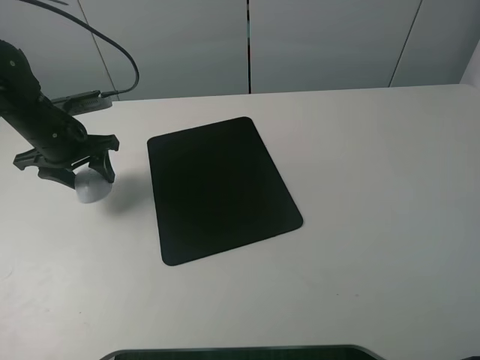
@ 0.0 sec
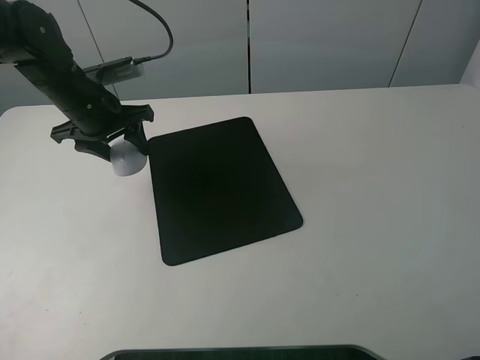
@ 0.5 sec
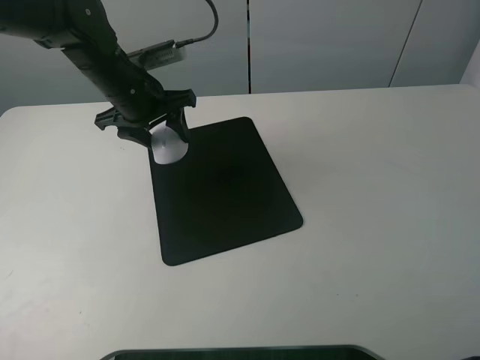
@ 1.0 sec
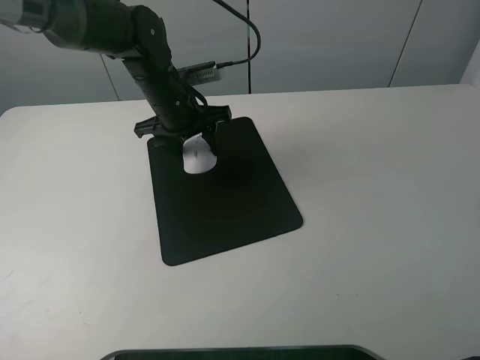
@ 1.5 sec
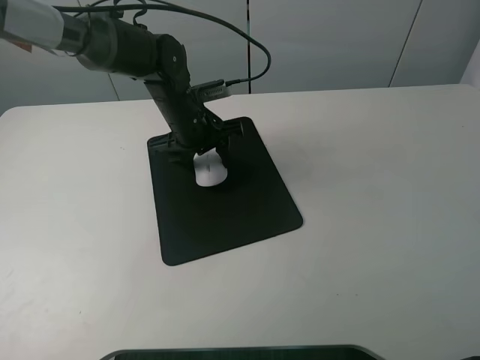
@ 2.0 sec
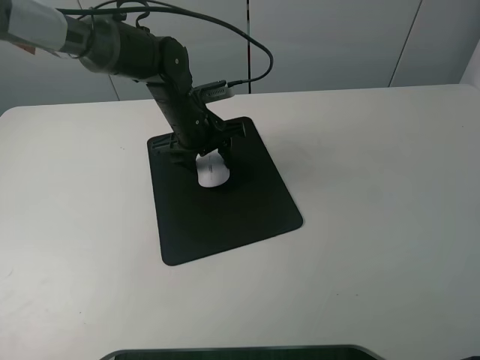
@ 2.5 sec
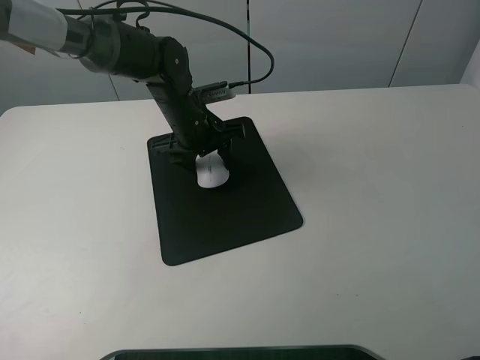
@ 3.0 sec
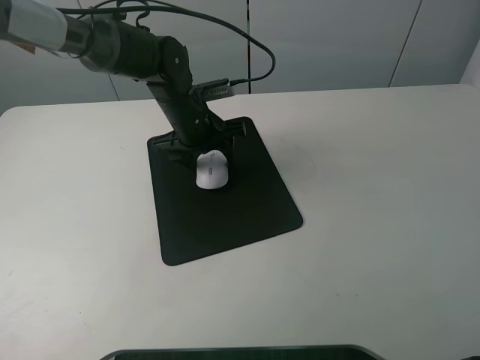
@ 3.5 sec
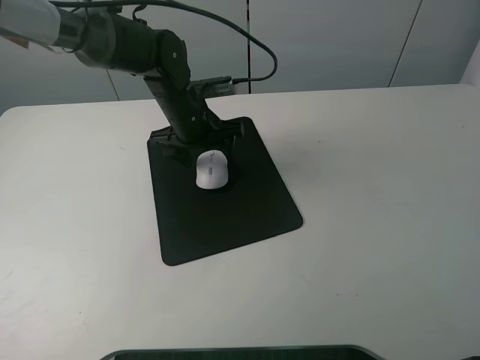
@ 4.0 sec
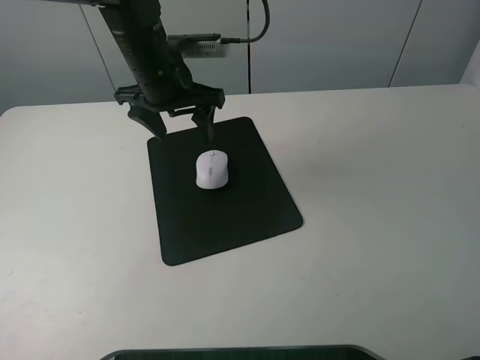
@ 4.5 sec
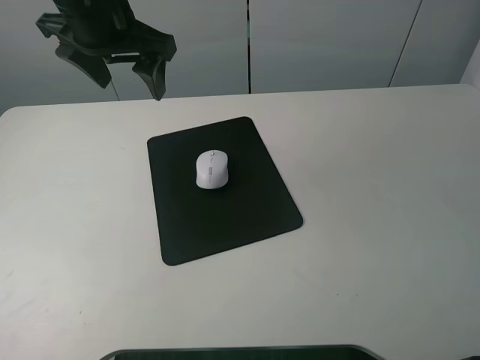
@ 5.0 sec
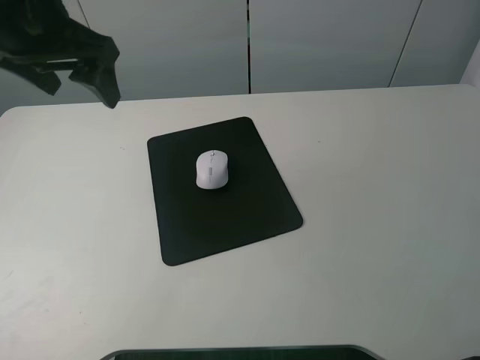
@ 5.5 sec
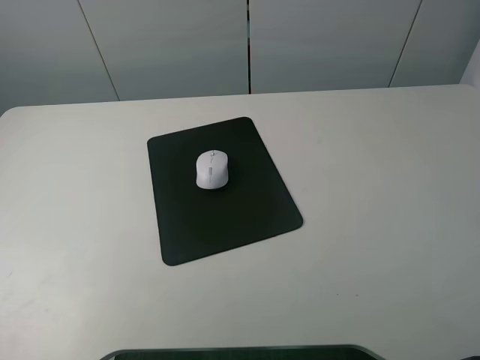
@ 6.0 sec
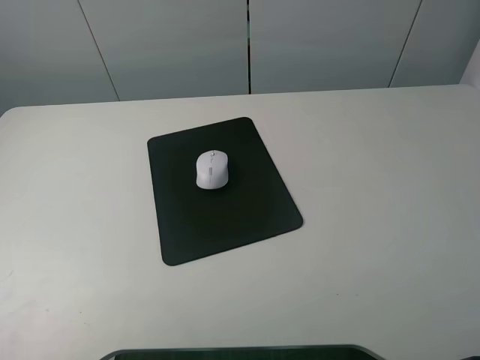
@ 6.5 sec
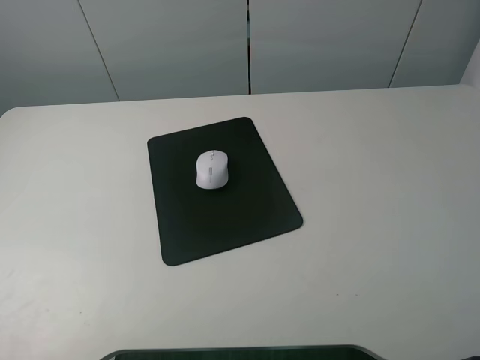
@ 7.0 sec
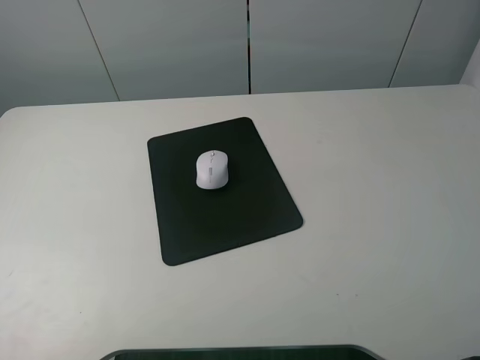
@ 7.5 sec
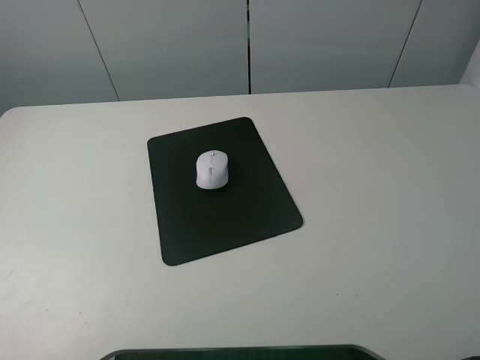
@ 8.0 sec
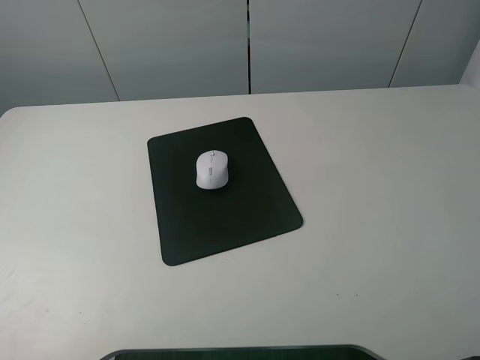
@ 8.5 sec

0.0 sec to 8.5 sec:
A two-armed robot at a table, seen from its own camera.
Step, 0.0 sec to 3.5 sec: Place the mouse on the mouse mat with the left gripper.
0.0 sec to 2.0 sec: The left gripper travels to the right by some 20 cm.
2.0 sec to 4.0 sec: The left gripper opens its fingers.
4.0 sec to 6.5 sec: The left gripper heads backward, to the left and upward, covering approximately 50 cm.
